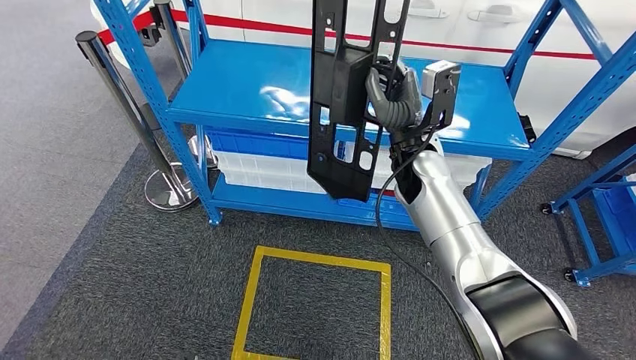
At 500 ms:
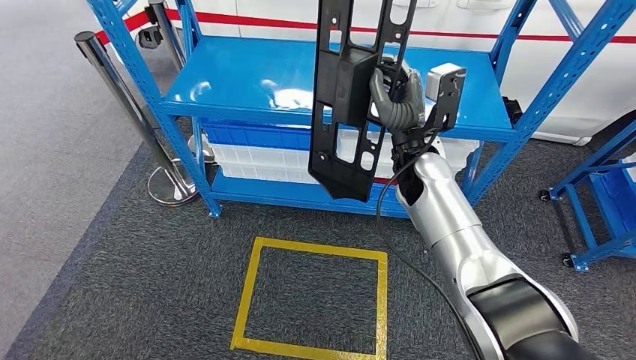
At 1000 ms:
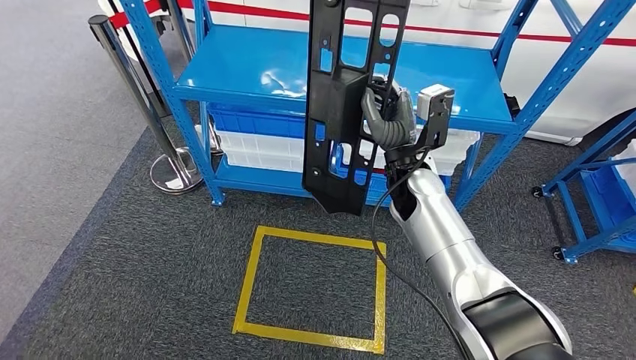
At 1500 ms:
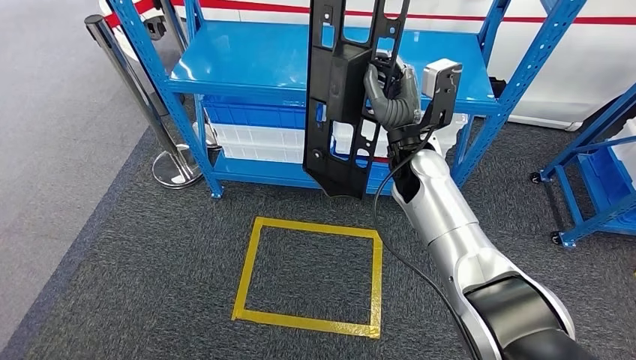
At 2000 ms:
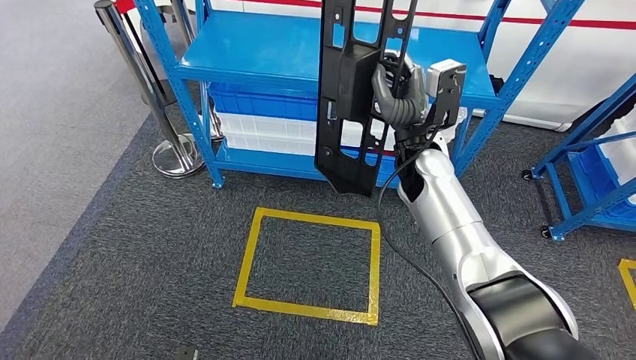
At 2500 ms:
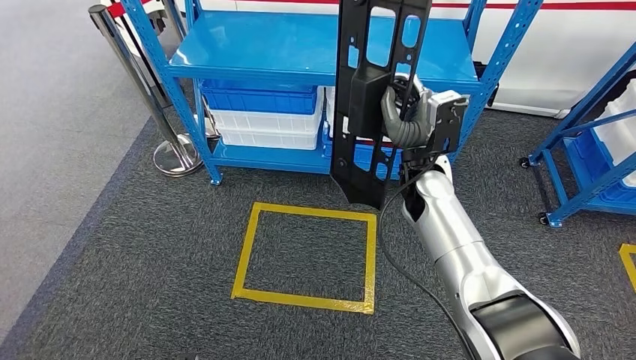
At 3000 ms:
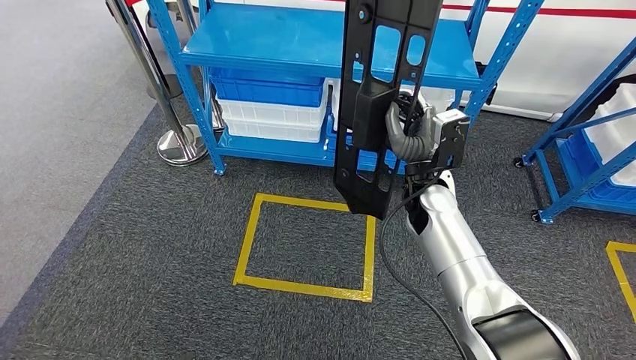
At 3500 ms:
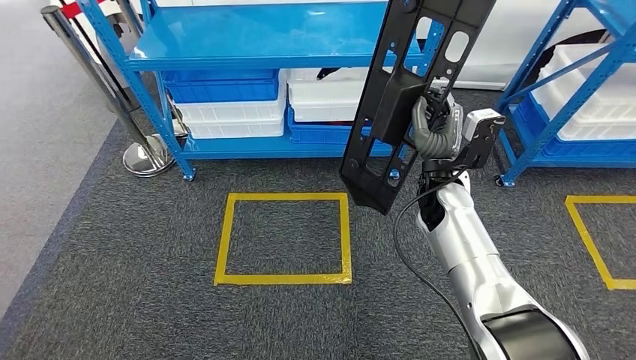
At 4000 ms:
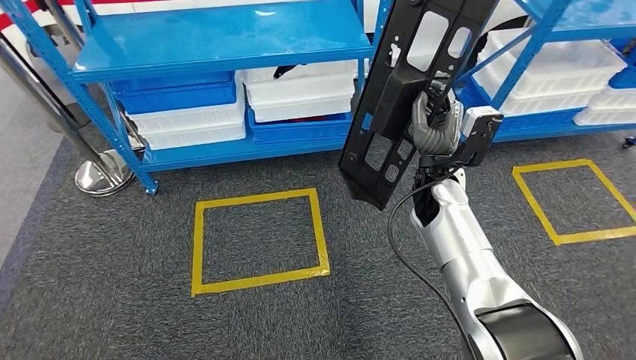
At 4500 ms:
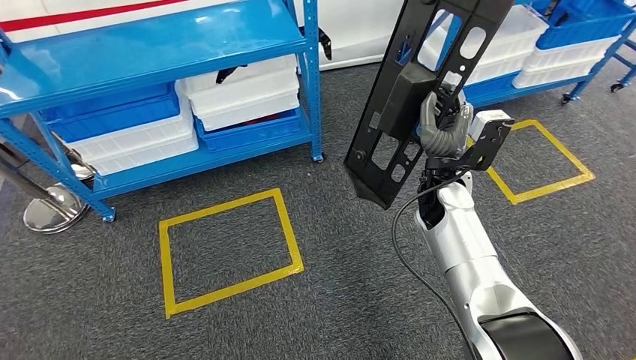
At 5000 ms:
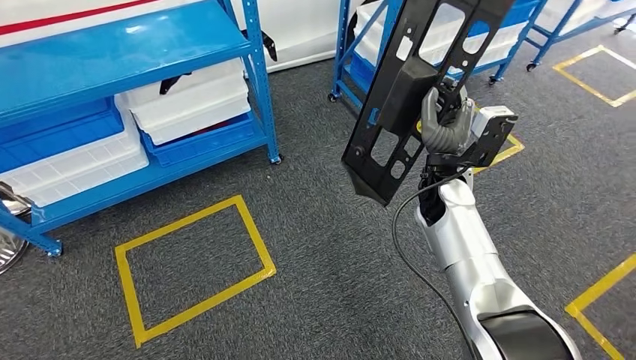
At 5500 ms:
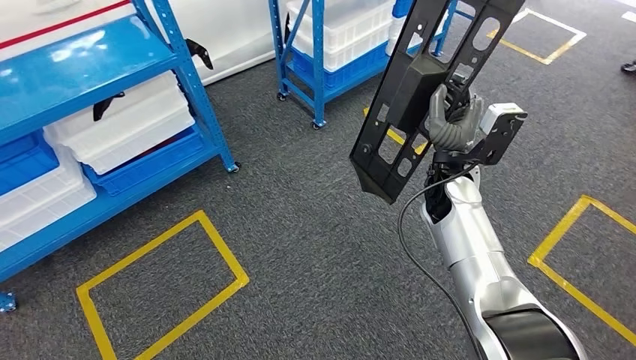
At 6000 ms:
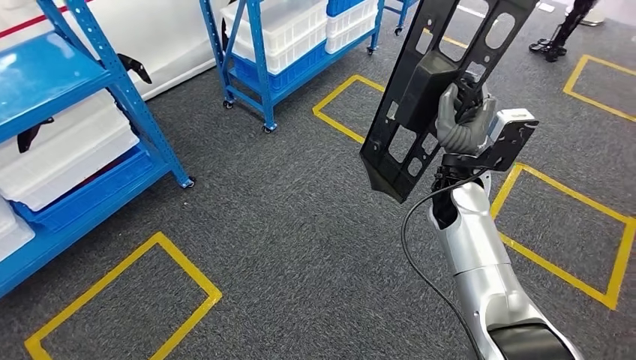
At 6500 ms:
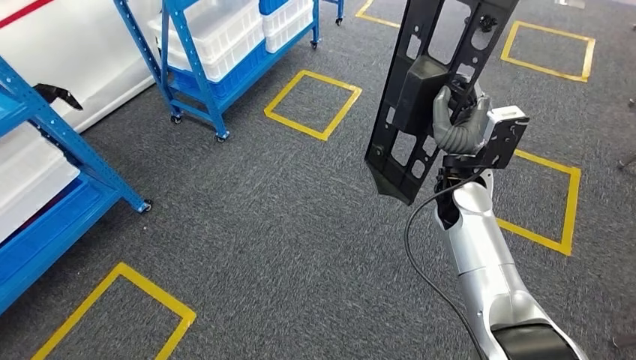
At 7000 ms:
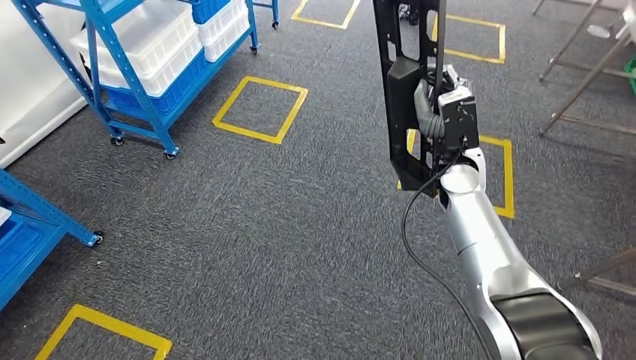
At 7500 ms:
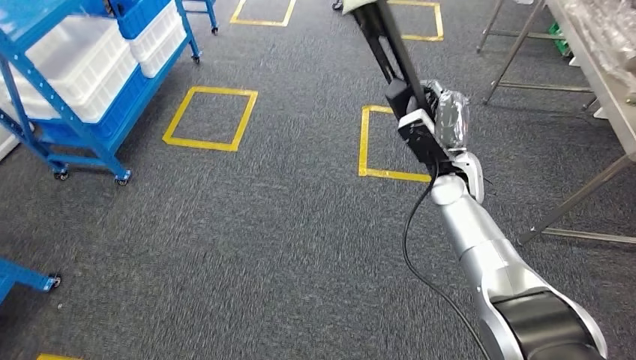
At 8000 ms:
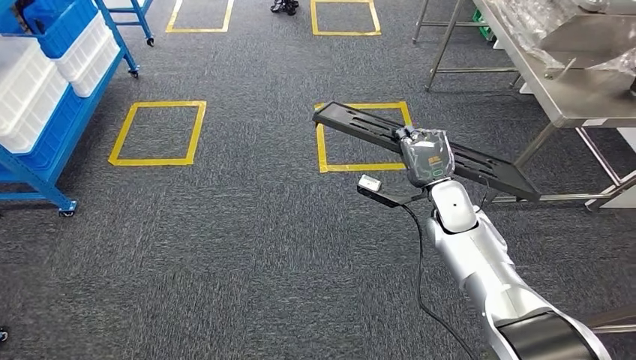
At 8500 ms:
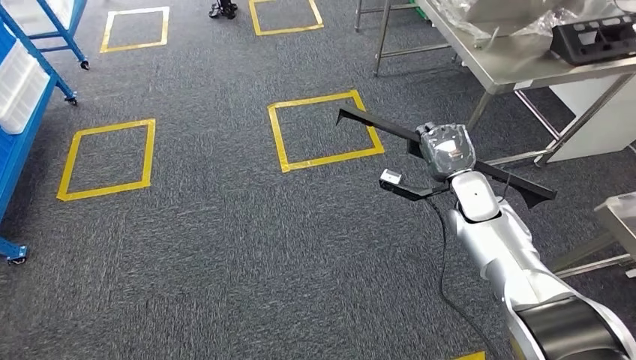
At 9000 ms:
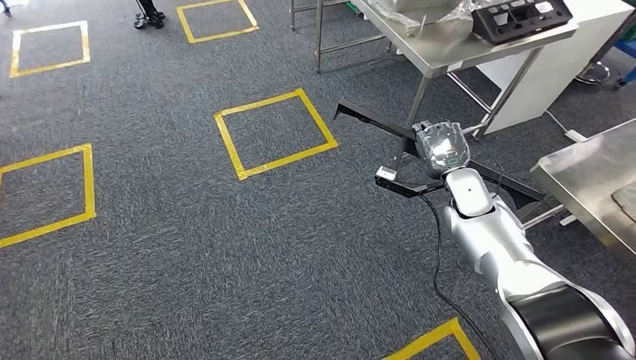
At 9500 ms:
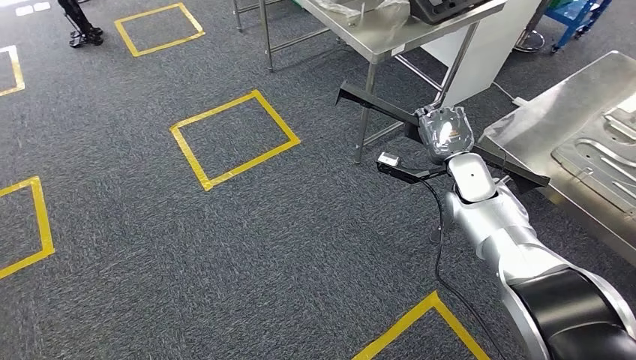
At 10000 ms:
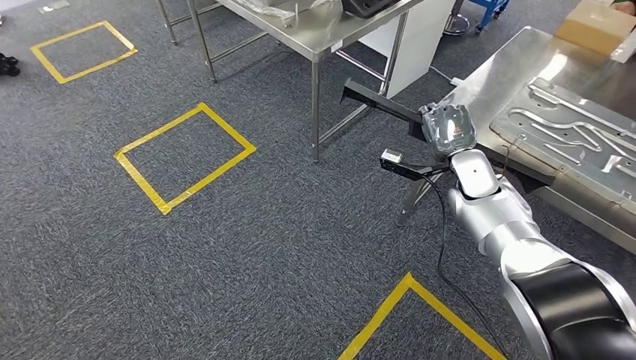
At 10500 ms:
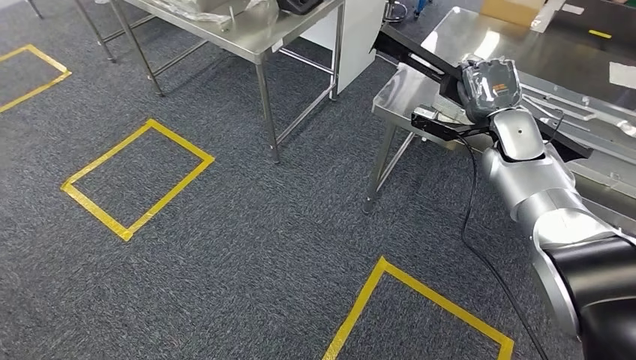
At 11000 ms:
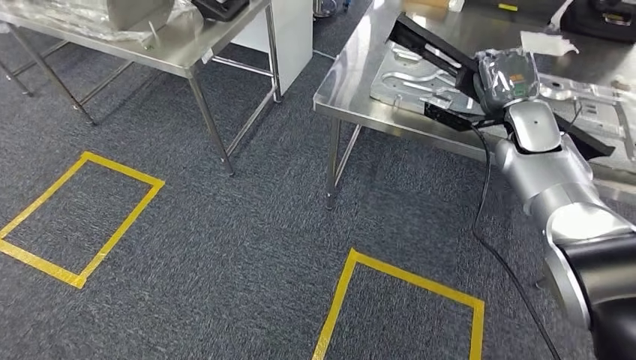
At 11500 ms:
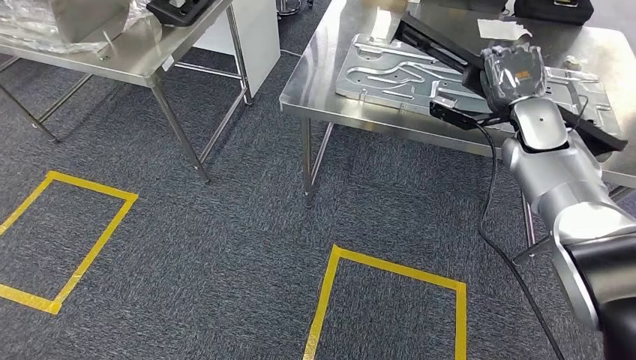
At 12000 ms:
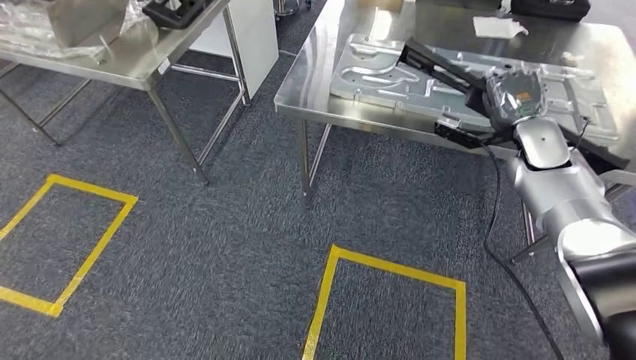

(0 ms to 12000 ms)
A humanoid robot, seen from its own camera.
Step, 0 ms - 11500 ms: Move the large material to the workbench.

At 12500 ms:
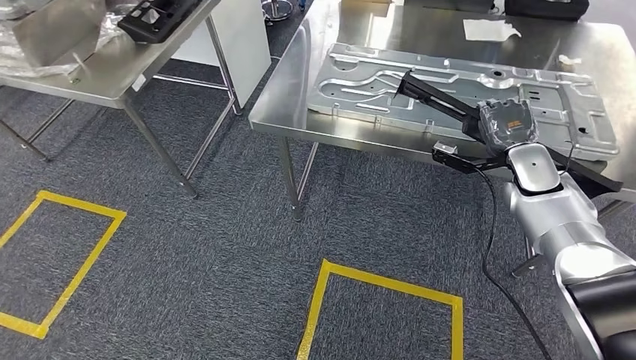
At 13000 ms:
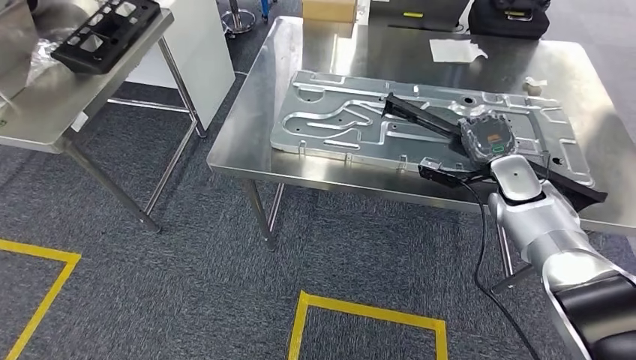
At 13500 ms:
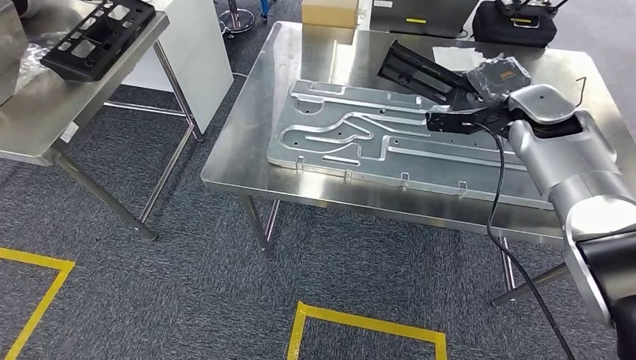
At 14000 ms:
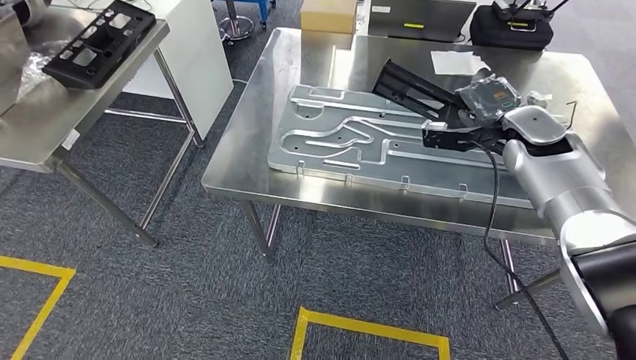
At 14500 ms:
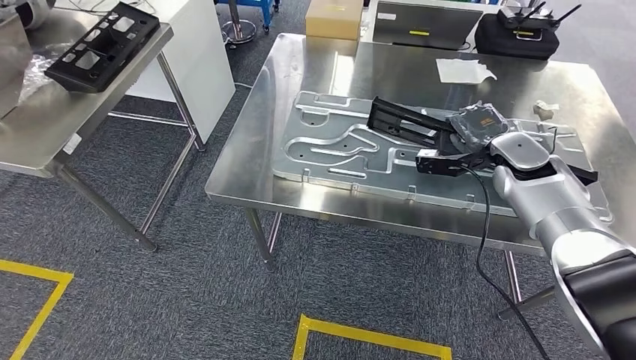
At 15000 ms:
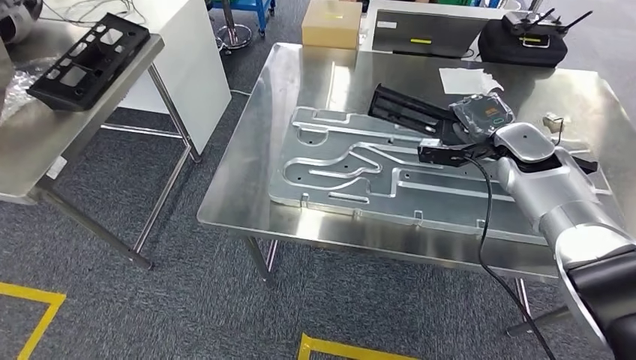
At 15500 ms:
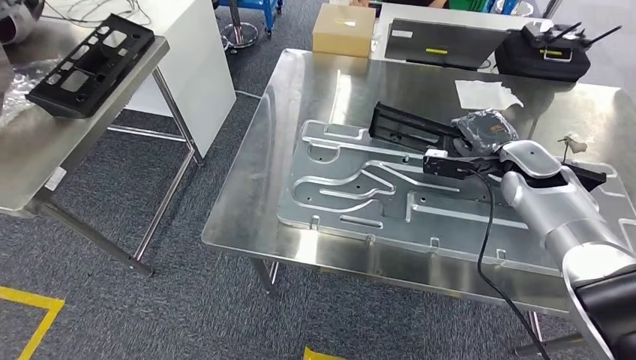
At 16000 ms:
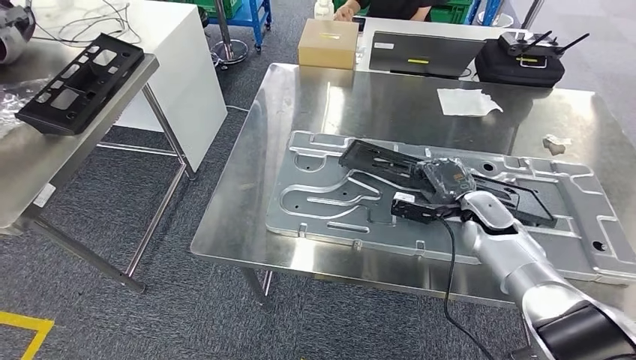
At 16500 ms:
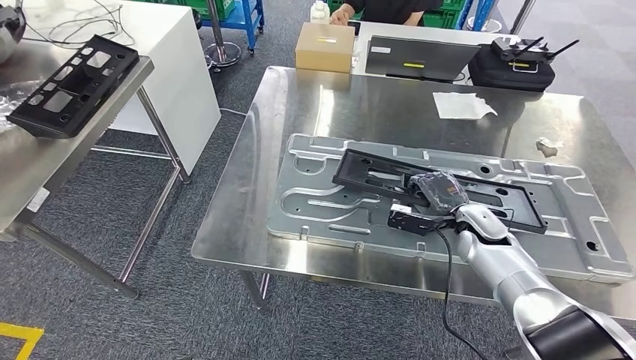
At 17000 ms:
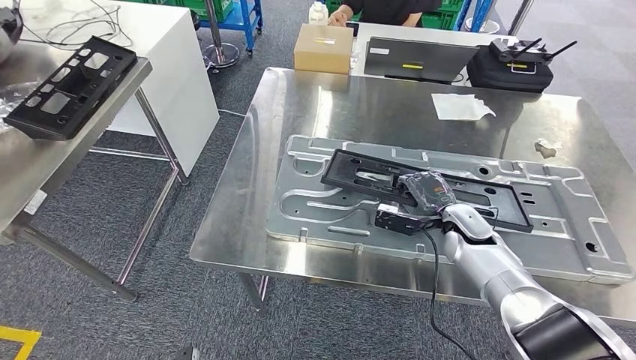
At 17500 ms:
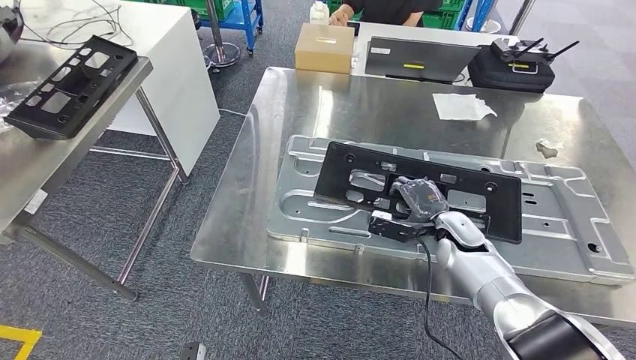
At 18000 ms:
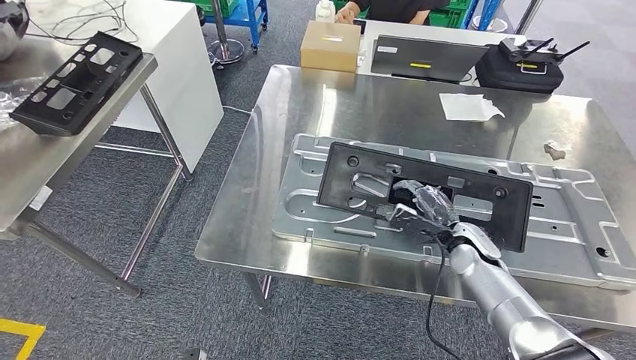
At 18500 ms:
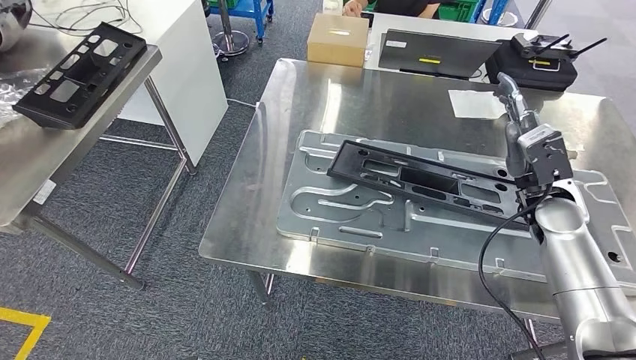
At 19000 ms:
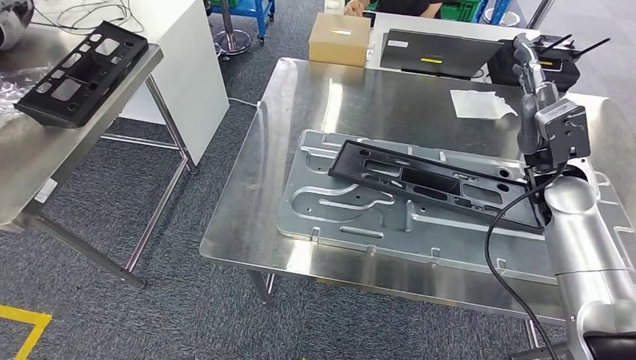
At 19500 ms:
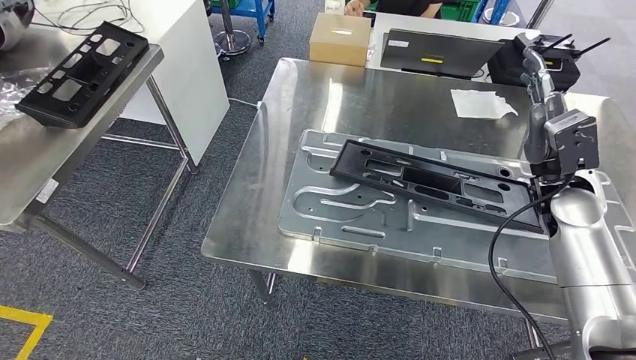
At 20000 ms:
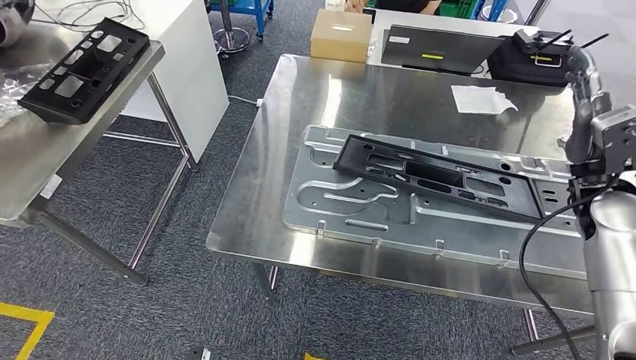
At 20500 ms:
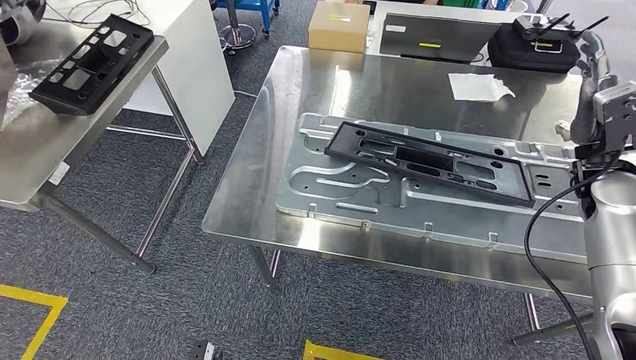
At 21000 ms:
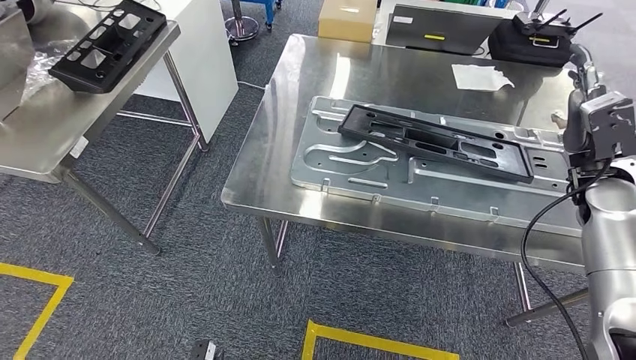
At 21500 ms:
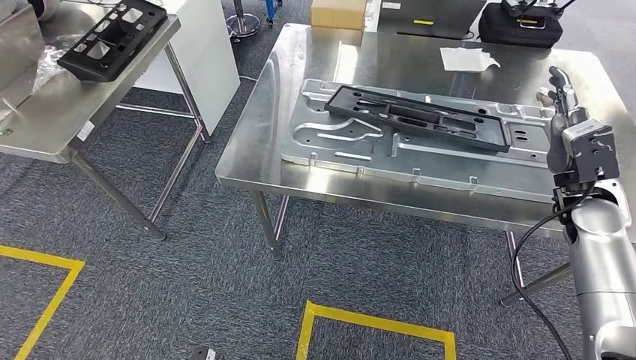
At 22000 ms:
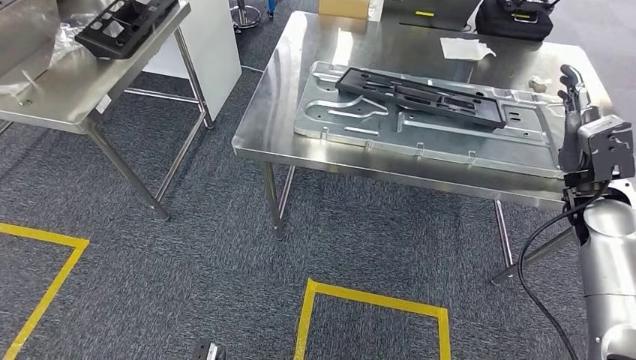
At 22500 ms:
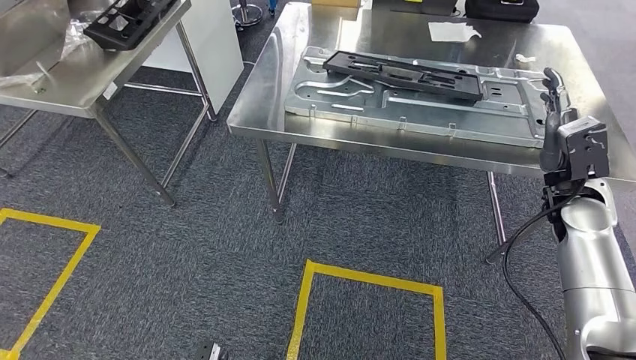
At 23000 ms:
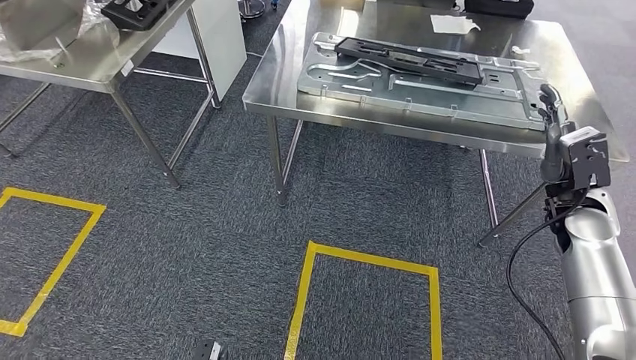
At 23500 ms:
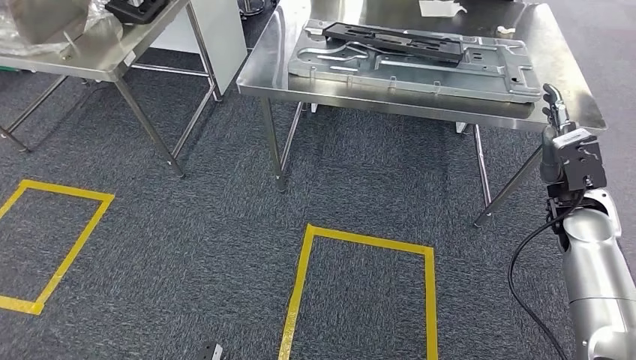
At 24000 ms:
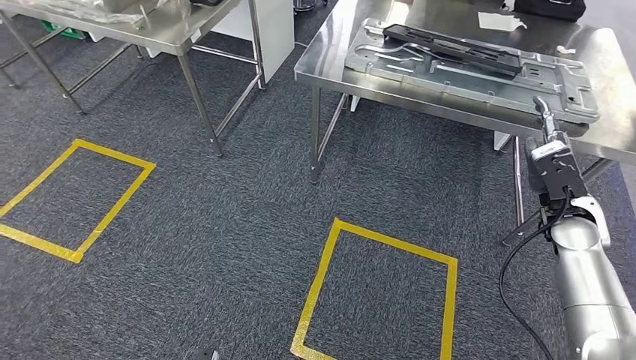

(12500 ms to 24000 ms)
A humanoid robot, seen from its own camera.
Step, 13500 ms - 18500 ms: Insert the large material into the corresponding slot on the workbench.
